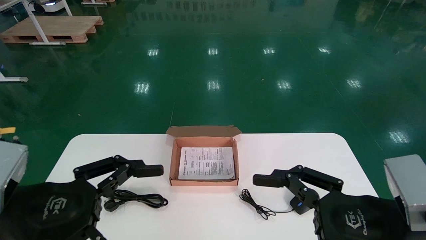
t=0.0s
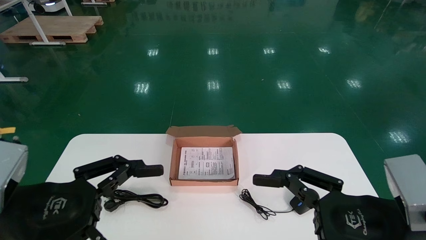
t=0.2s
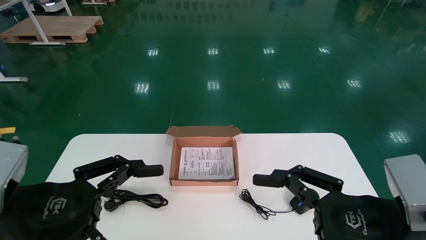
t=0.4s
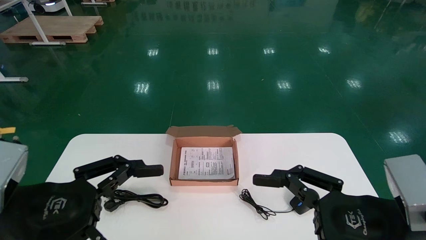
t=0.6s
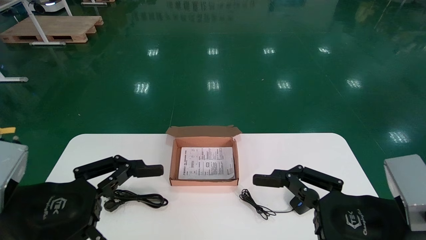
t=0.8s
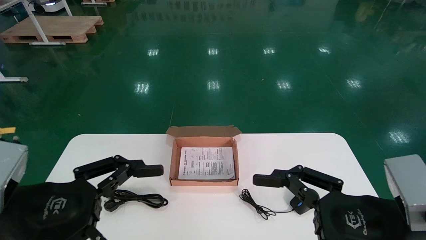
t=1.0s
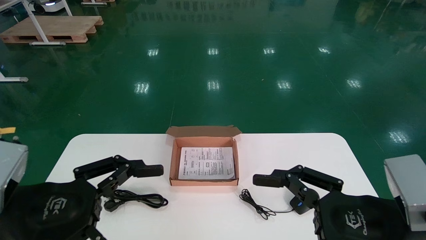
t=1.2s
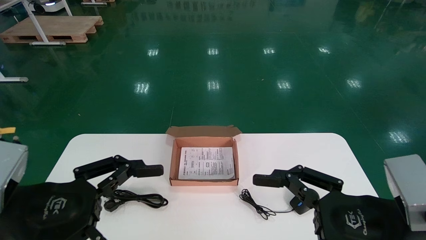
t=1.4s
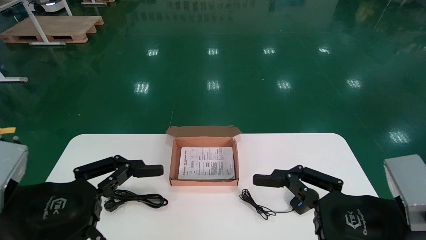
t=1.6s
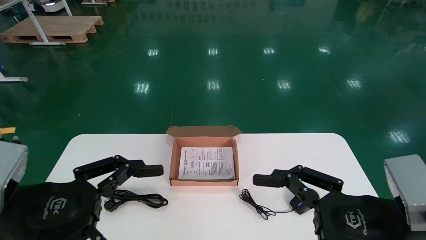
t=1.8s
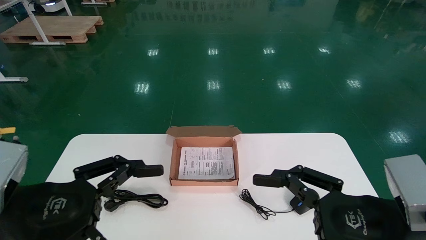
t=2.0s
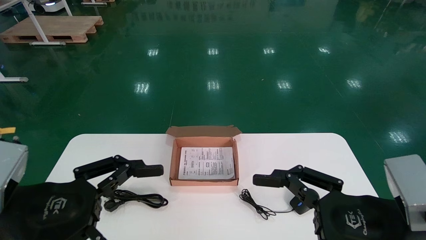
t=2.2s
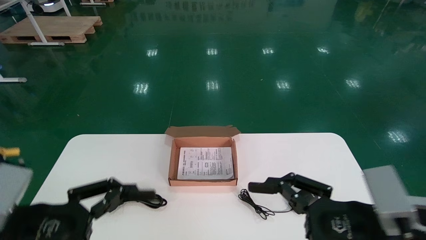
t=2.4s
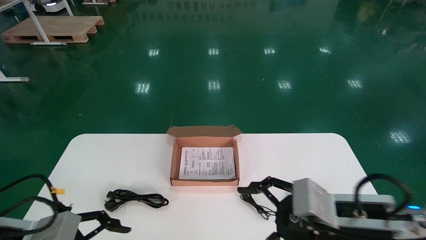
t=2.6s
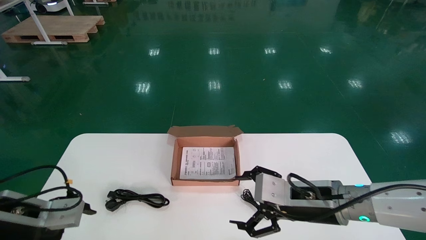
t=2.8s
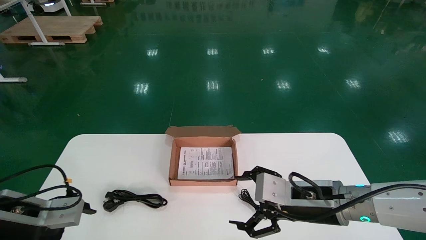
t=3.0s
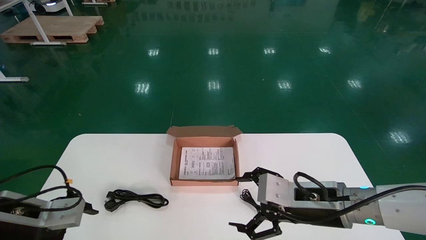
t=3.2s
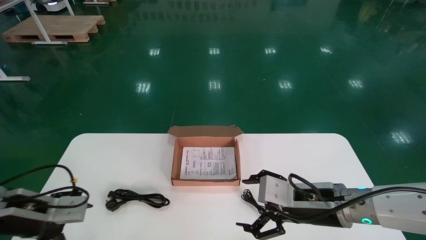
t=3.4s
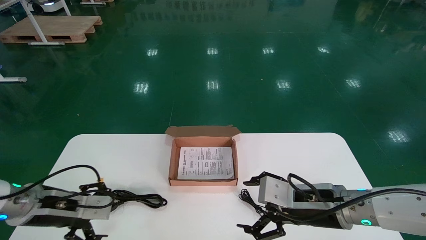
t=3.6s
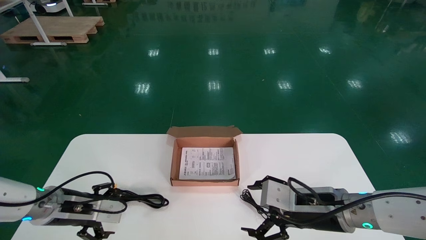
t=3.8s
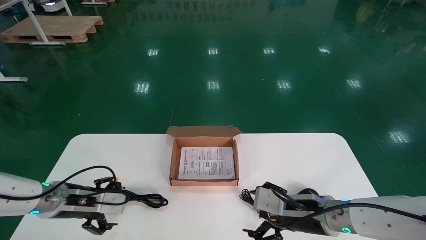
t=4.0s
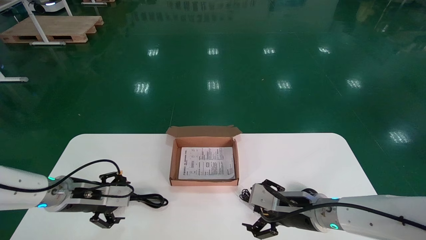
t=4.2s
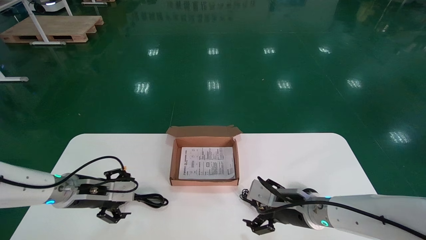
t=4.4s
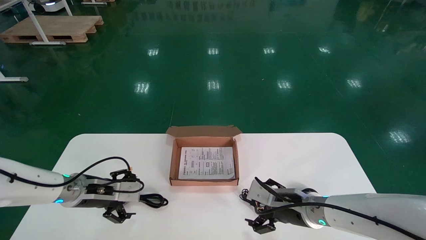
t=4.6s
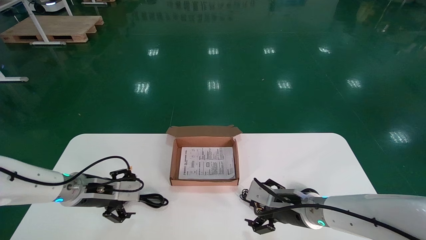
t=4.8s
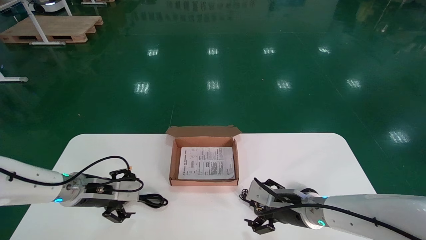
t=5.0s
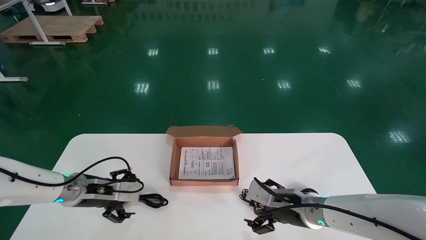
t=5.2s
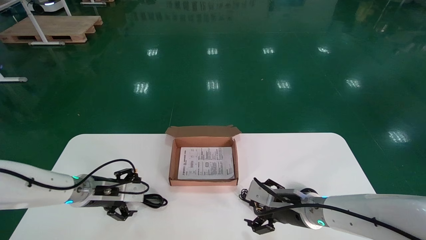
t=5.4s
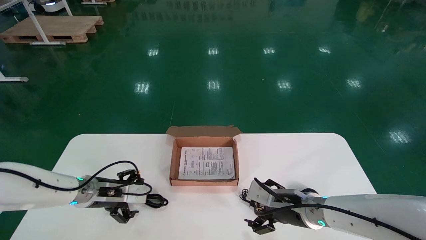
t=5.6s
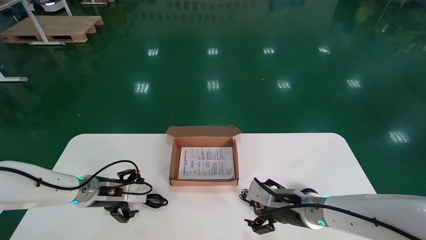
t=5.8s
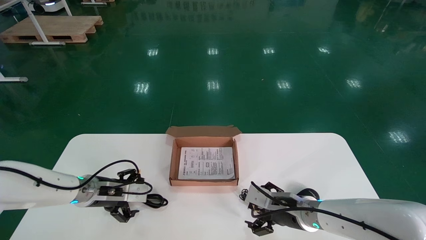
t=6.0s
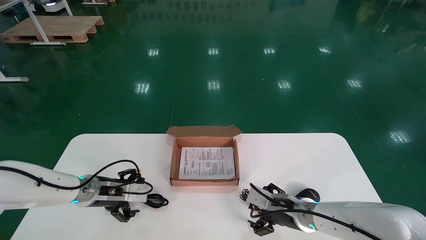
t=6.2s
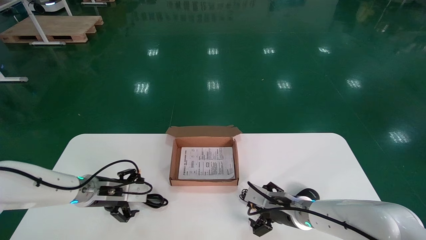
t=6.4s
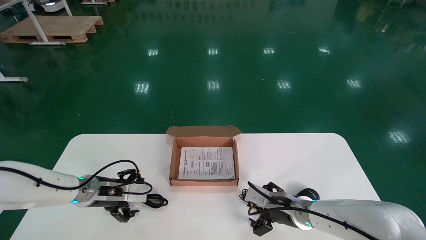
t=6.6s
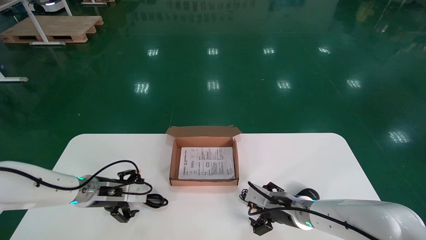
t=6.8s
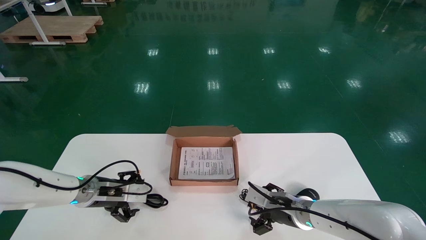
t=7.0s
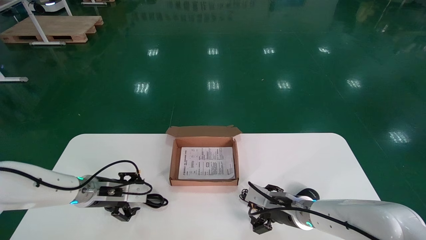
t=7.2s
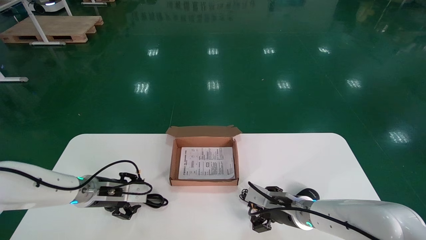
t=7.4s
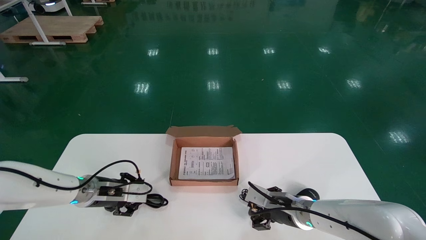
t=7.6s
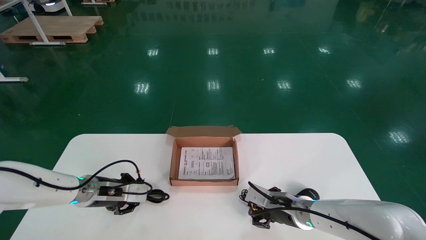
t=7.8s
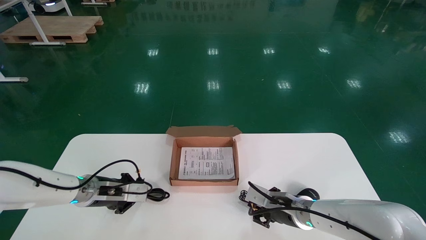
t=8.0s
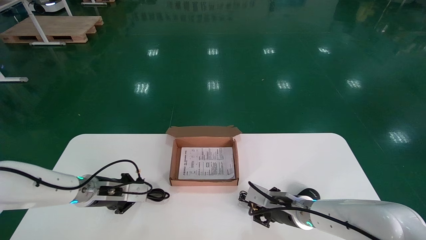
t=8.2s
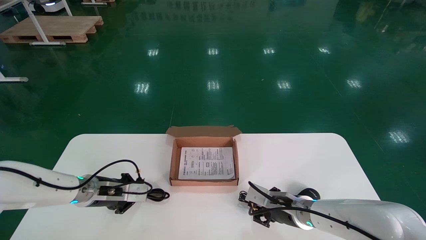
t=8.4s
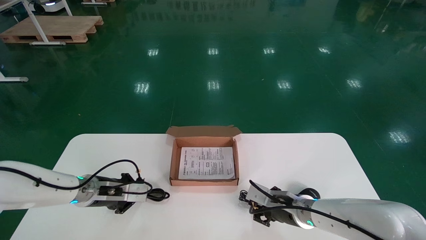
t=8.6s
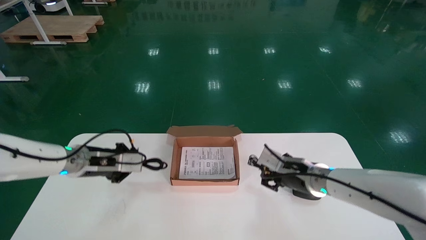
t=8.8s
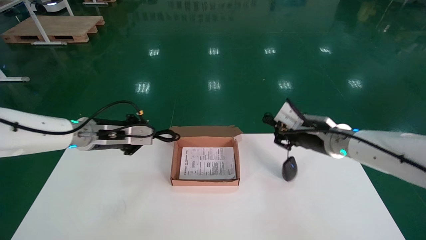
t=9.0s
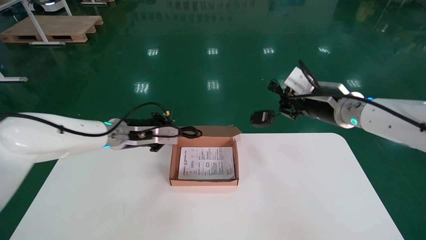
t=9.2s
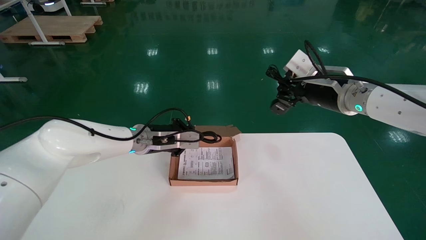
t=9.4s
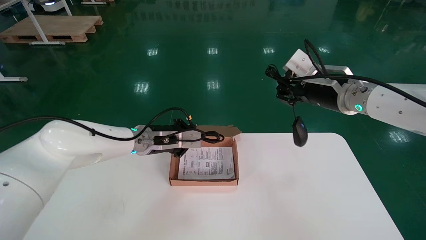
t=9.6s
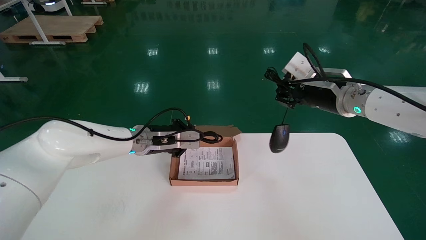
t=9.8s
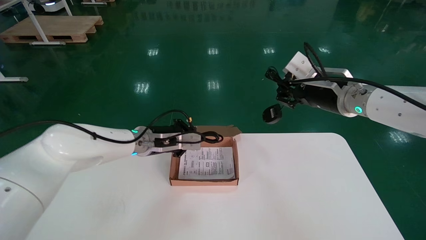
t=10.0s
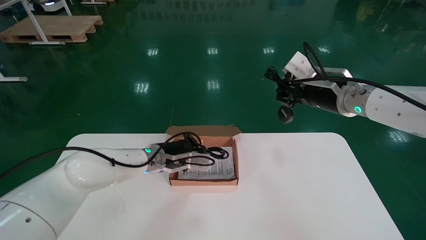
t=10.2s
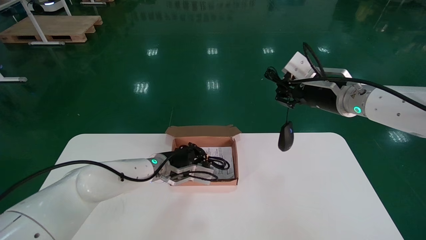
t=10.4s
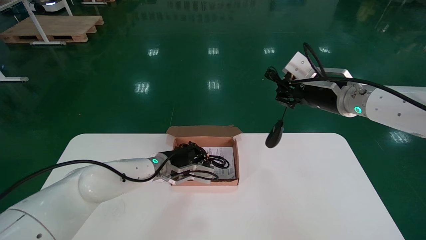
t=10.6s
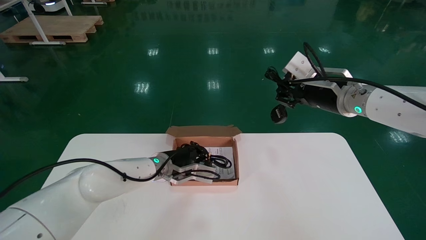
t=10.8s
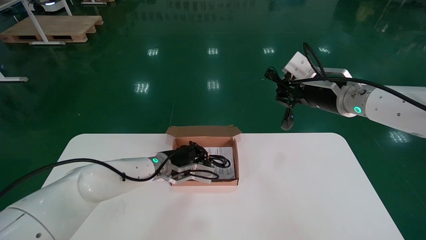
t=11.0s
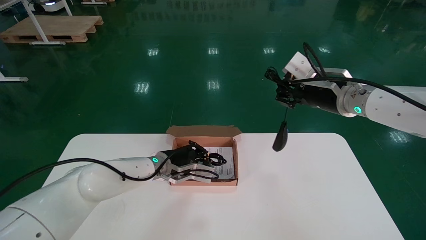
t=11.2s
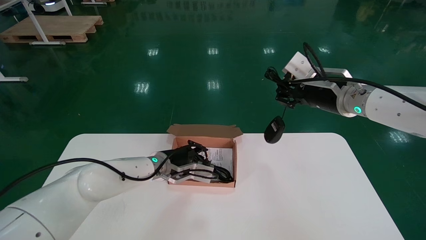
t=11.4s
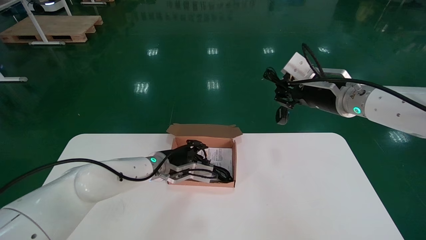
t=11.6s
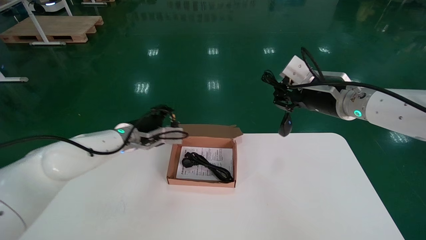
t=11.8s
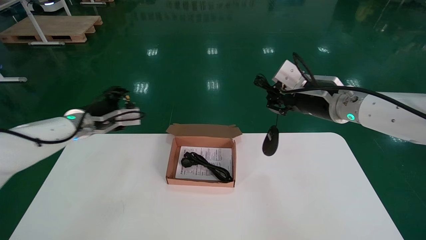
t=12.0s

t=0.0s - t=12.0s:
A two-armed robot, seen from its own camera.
Step, t=2.6s - t=9.2s: Simultaneously pick up the mouse and power cord from the accessory packaging area.
t=0.0s - t=1.6s: Both grippers stay put.
t=1.6s - t=3.0s: The right gripper is displaced forward by some 15 cm. Meanwhile the left gripper is displaced forward, to the left and downward by about 15 cm.
t=3.0s - t=4.4s: The left gripper heads forward and to the right, covering roughly 15 cm. The right gripper travels forward and downward by roughly 10 cm.
t=4.4s - t=6.0s: The grippers move only a little.
t=6.0s - t=7.6s: The right gripper closes up. Meanwhile the left gripper closes.
t=7.6s - t=9.0s: The two grippers go some 15 cm upward. The right gripper closes; the left gripper closes.
t=9.0s - t=10.4s: The left gripper travels to the right and downward by some 15 cm, while the right gripper moves upward, some 10 cm.
t=10.4s - t=12.0s: The left gripper moves to the left and upward, some 20 cm, and opens its fingers.

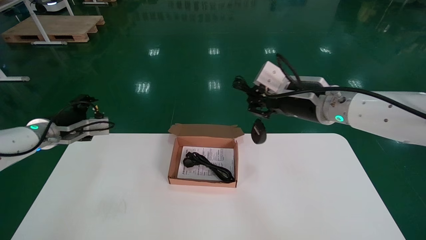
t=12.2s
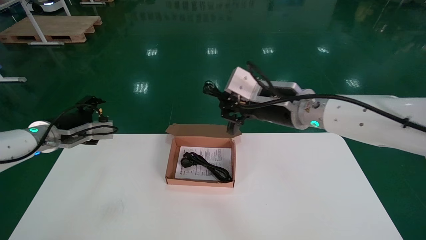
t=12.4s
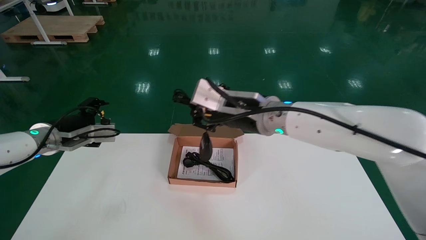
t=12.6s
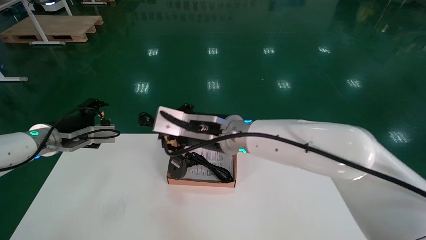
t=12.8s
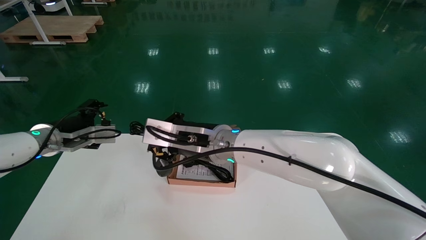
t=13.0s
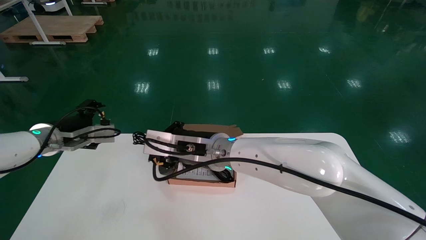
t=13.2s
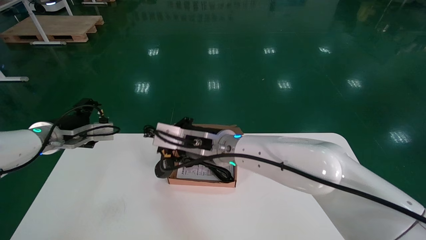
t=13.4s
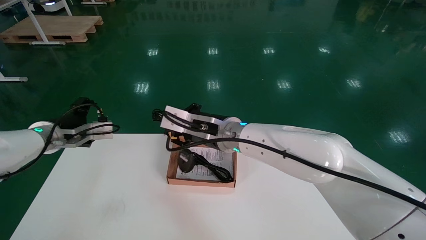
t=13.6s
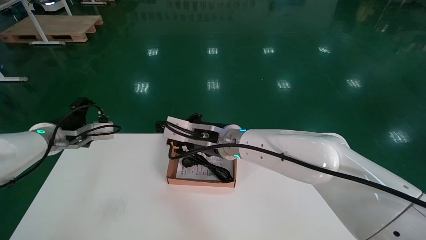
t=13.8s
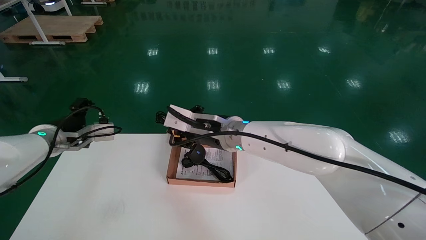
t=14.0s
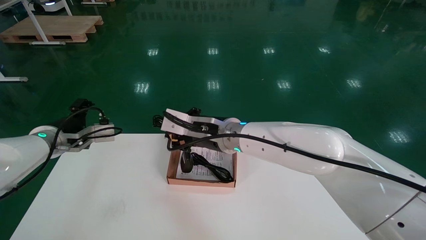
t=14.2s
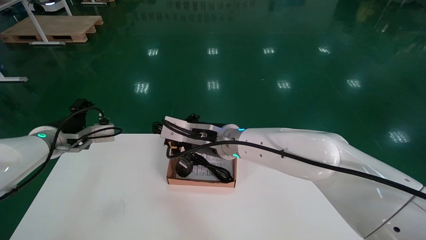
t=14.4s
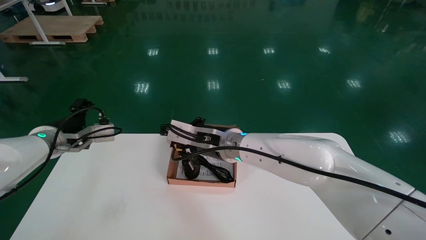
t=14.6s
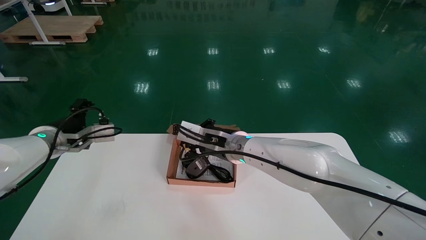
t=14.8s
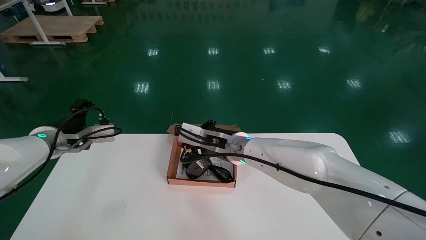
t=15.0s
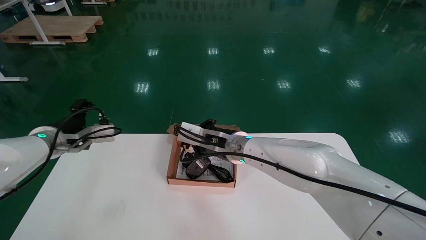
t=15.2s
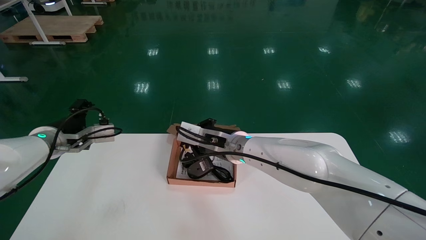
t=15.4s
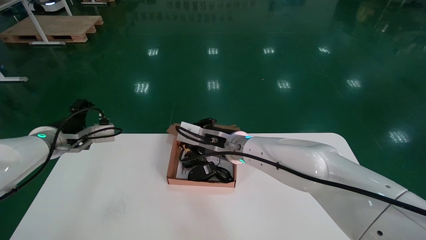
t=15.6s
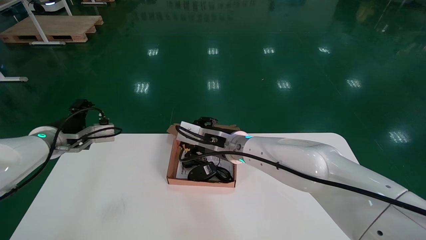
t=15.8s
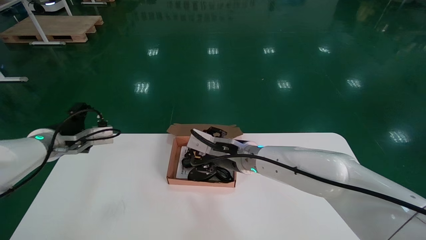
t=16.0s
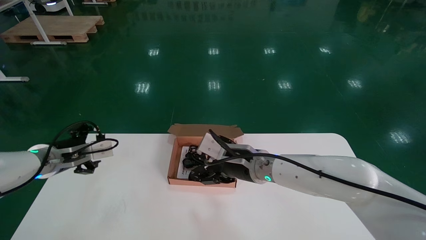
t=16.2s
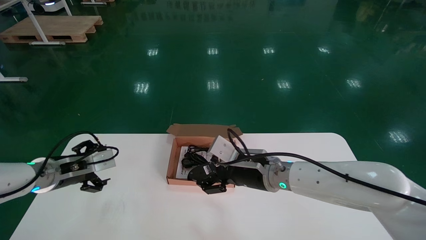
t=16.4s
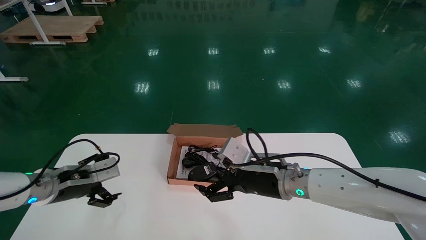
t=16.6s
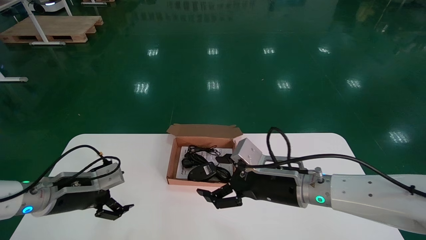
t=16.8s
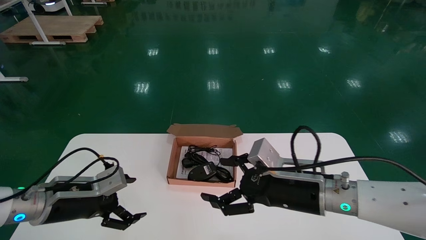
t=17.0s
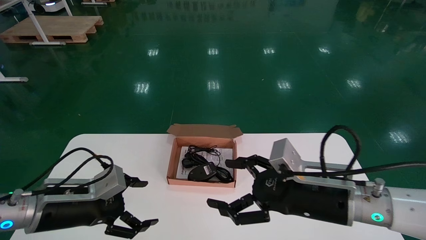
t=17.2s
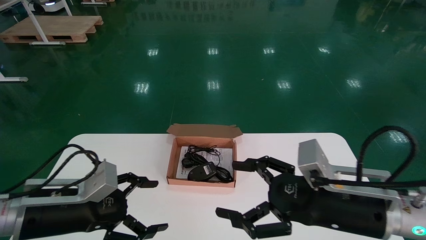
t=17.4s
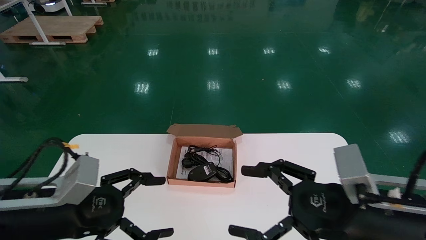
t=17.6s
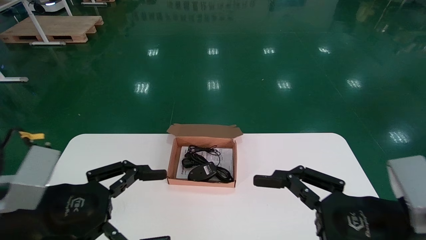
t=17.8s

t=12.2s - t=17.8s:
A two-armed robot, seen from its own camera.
Step, t=12.2s - t=15.8s: Place the mouse and power cord into the box.
t=12.2s - t=13.6s: The right gripper moves to the left and downward, about 20 cm.
t=13.6s - t=15.0s: The right gripper moves roughly 5 cm.
t=15.0s - t=16.4s: The right gripper heads to the right, covering some 5 cm, and opens up; the left gripper goes approximately 5 cm downward.
t=16.4s - t=17.8s: The right gripper shifts about 25 cm backward and to the right, while the left gripper travels backward by about 20 cm.
